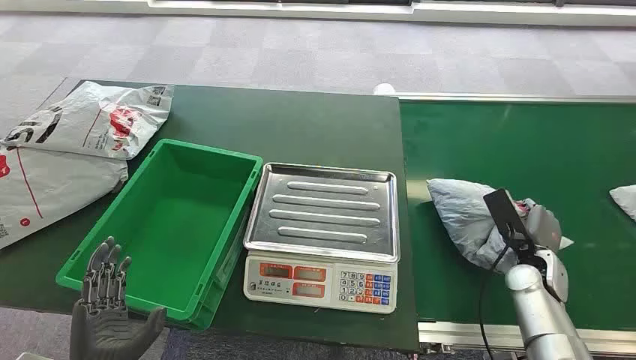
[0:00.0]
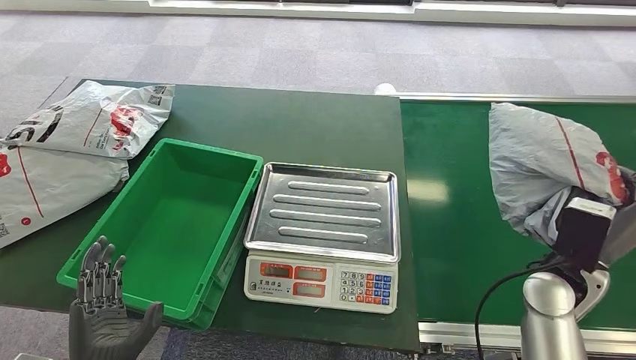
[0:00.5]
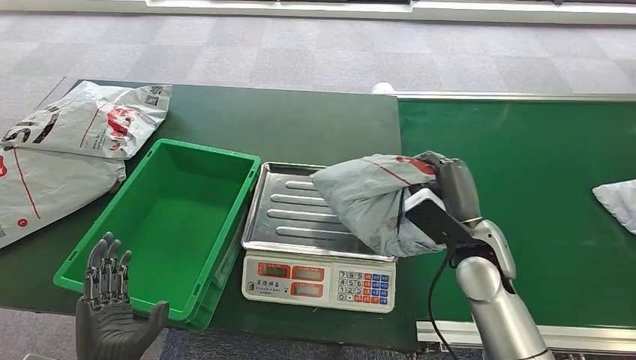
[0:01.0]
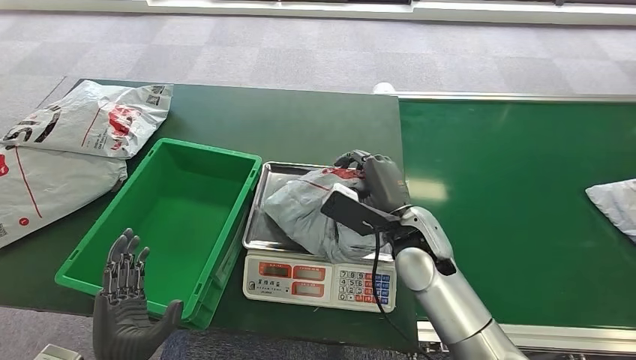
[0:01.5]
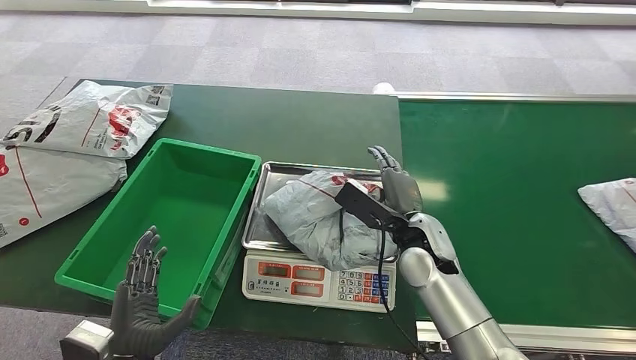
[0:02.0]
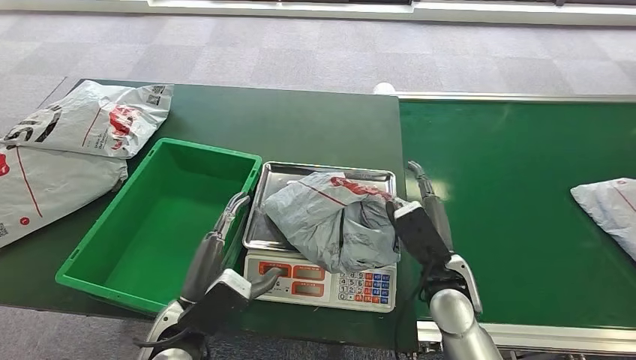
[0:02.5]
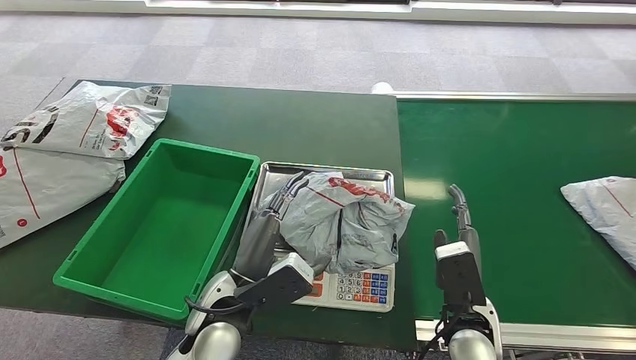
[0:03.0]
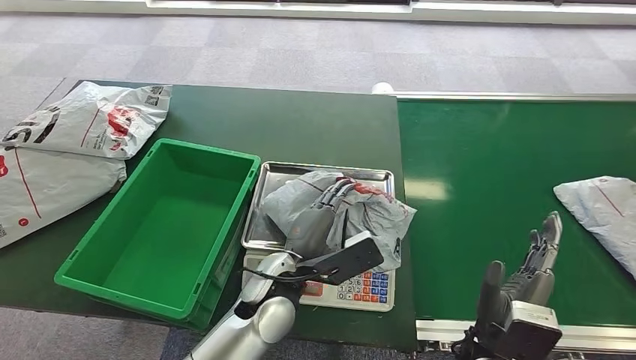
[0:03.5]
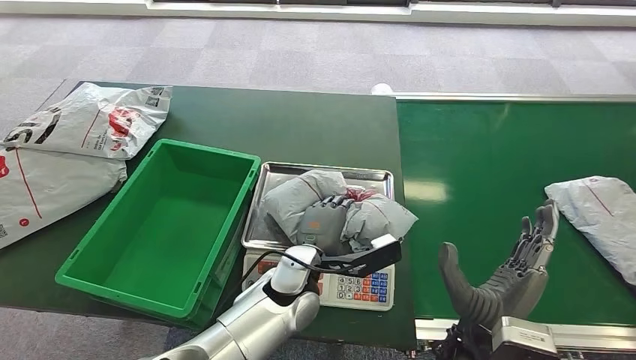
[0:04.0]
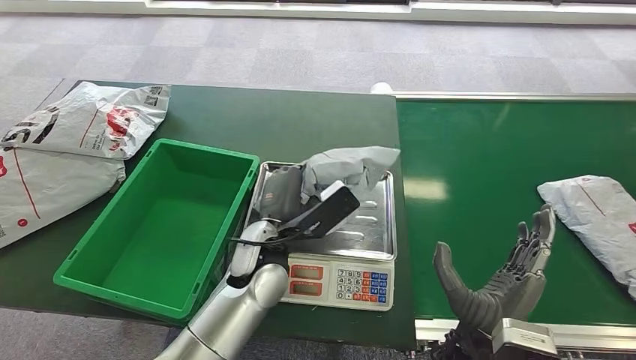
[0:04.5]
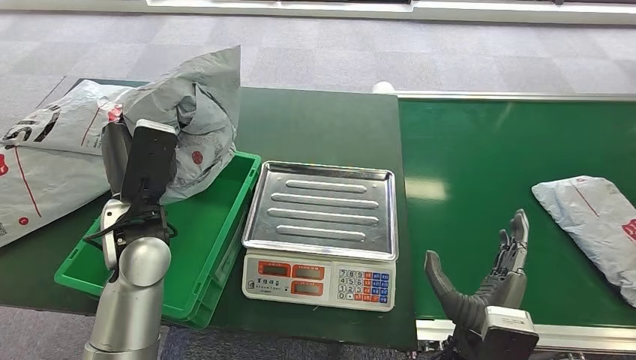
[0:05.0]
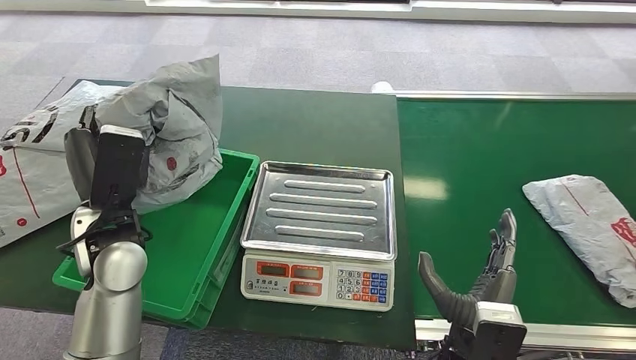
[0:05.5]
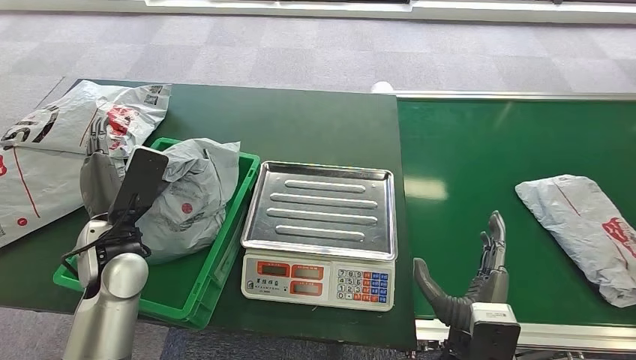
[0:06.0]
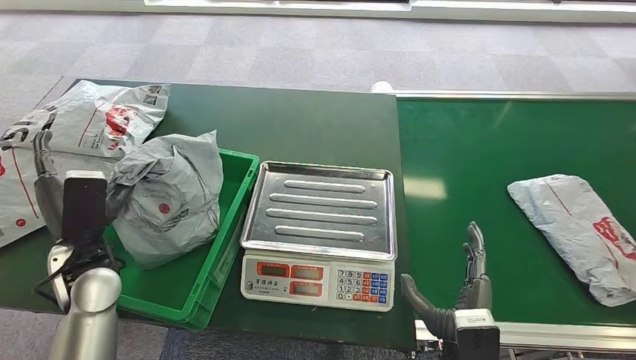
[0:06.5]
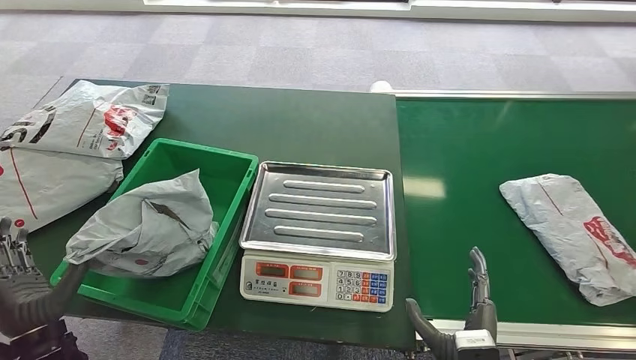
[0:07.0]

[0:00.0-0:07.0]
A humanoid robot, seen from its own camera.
Step, 0:00.0 to 0:00.5: Pick up the package from the conveyor belt.
Step, 0:01.0 to 0:02.0: Place the package onto the inbound machine.
Step, 0:03.5 to 0:04.5: Pick up the package from the inbound machine.
Step, 0:05.5 to 0:07.0: Place the package into the parcel locker.
0:02.0 to 0:03.5: The left hand goes about 25 cm to the right and forward. Meanwhile the right hand goes roughly 15 cm backward.
